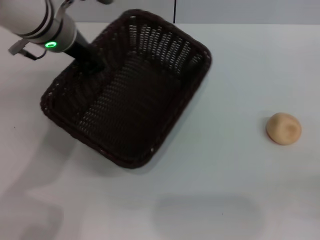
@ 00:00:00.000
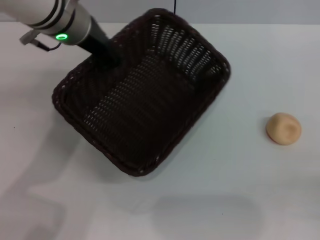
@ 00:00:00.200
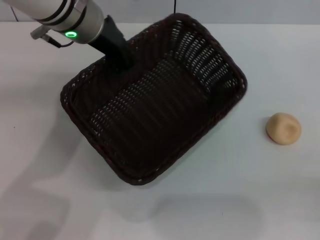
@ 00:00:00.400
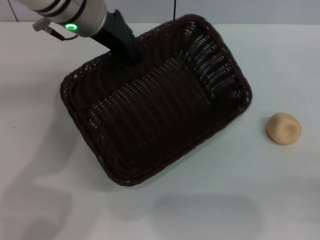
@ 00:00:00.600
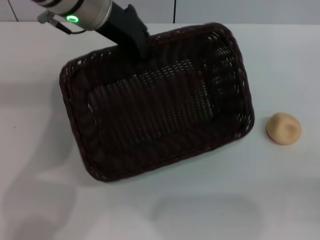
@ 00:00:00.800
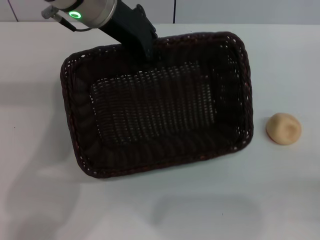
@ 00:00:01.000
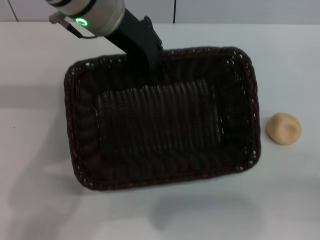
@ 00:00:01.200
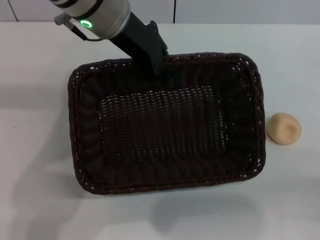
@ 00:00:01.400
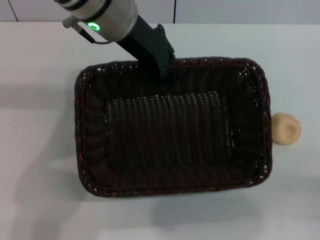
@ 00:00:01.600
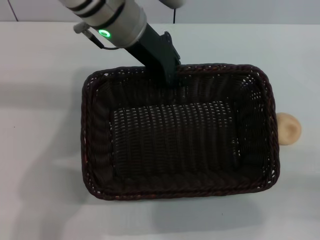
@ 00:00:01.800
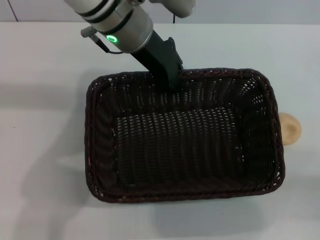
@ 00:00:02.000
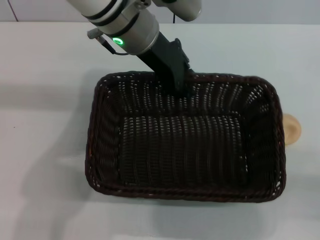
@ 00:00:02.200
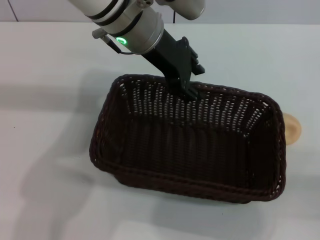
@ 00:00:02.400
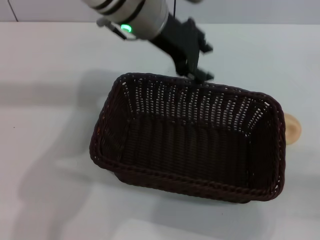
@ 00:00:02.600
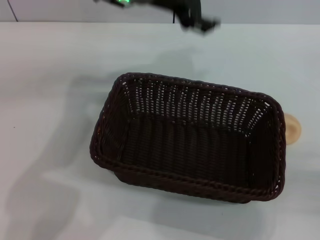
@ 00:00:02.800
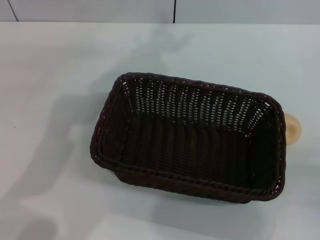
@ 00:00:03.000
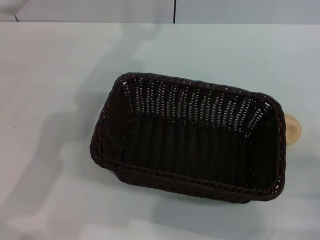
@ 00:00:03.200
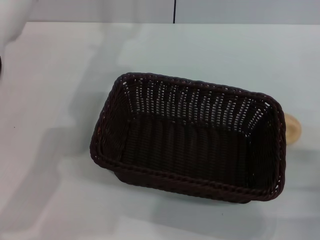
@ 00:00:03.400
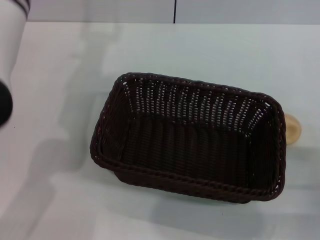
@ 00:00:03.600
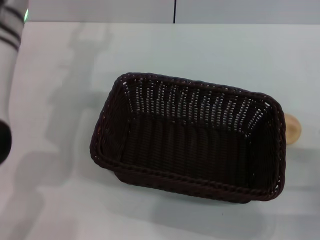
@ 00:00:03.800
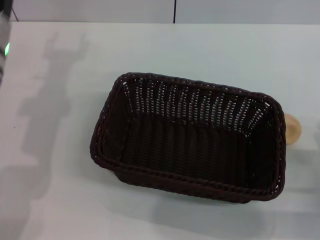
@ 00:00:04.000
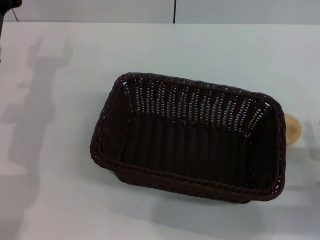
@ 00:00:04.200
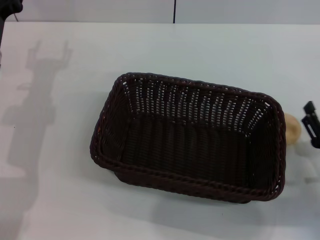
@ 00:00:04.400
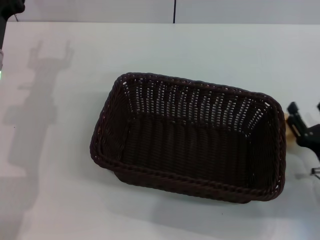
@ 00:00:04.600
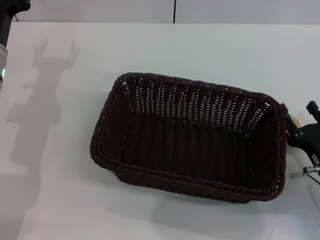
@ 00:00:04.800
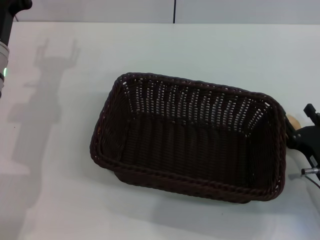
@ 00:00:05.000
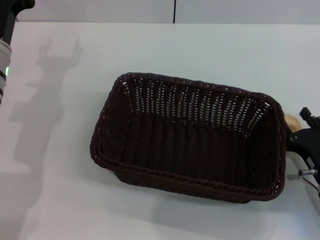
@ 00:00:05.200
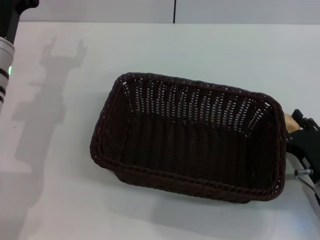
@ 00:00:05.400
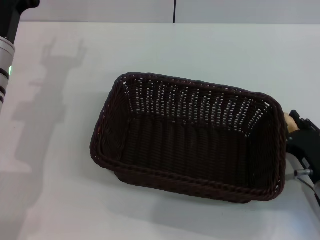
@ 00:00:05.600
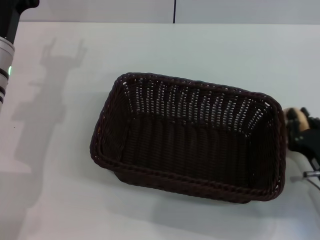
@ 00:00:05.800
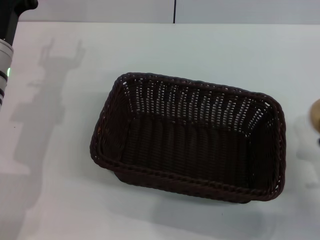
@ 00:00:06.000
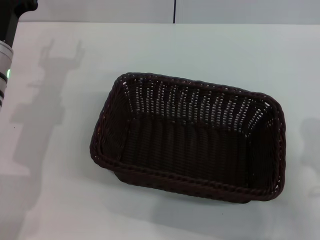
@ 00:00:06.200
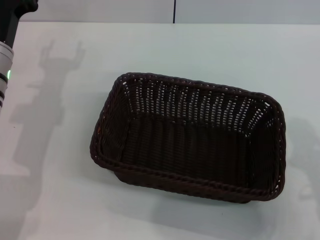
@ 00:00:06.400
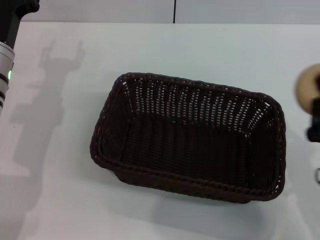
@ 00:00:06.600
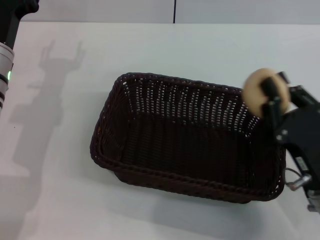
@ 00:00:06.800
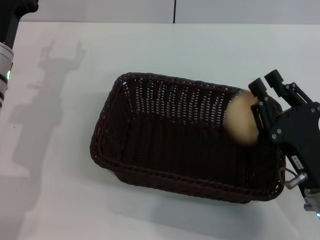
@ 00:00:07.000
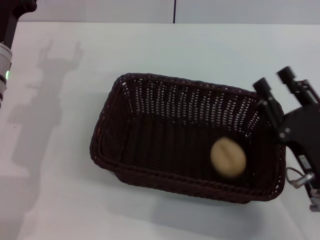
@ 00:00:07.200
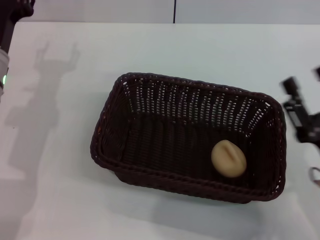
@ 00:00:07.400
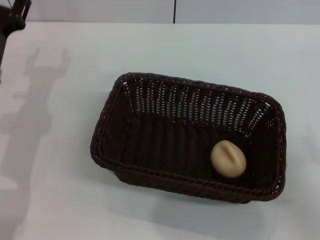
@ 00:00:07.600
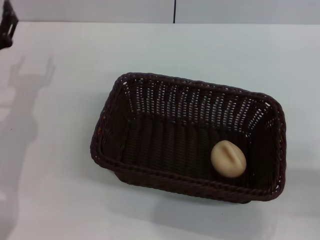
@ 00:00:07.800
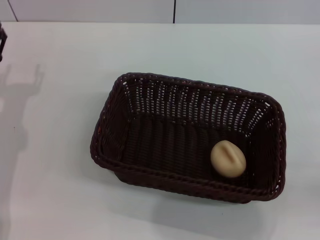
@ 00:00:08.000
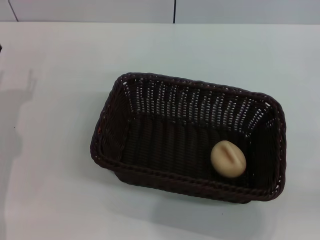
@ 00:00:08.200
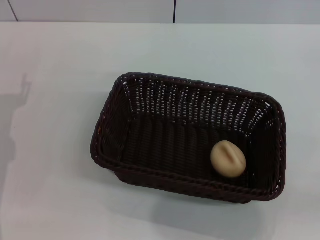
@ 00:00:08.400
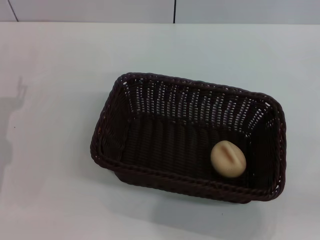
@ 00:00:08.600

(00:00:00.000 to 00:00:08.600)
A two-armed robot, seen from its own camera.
Step, 00:00:00.000 - 00:00:02.600: Move the basket to the center of view with the left gripper.
Step, 00:00:02.800 - 00:00:06.400: Pick up the egg yolk pastry with the right gripper.
Step, 00:00:06.600 - 00:00:07.200: Place the egg yolk pastry into the basket with the right gripper.
00:00:00.000 - 00:00:01.400: The left gripper is displaced to the right by approximately 5 cm.
00:00:01.400 - 00:00:02.800: The left gripper opens.
00:00:02.800 - 00:00:04.400: The right gripper heads forward and to the left, covering roughly 10 cm. The left gripper travels to the left, downward and backward by roughly 25 cm.
00:00:04.400 - 00:00:05.800: The right gripper closes.
00:00:05.800 - 00:00:07.200: The right gripper shifts about 5 cm upward.
00:00:07.200 - 00:00:08.600: The right gripper goes roughly 20 cm to the right and backward, and opens; the left gripper goes roughly 10 cm backward, downward and to the left.

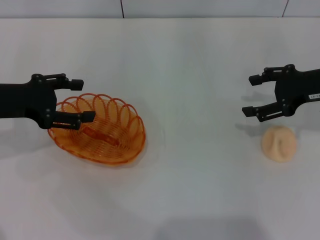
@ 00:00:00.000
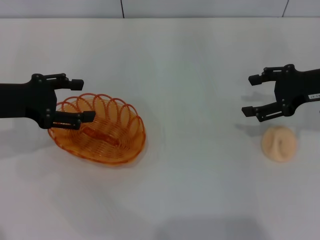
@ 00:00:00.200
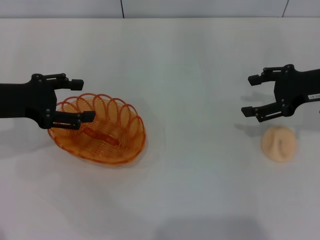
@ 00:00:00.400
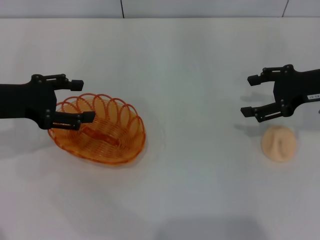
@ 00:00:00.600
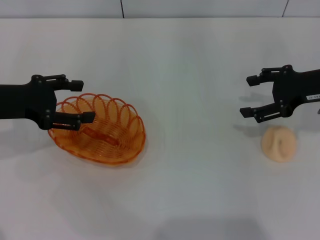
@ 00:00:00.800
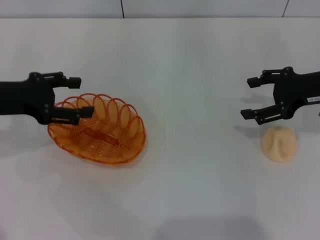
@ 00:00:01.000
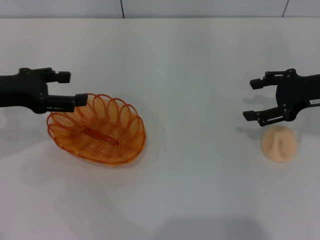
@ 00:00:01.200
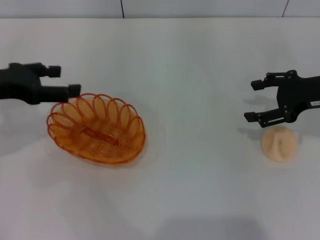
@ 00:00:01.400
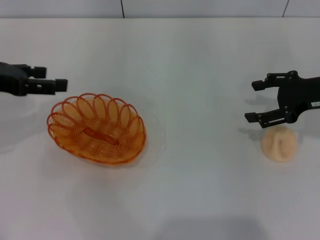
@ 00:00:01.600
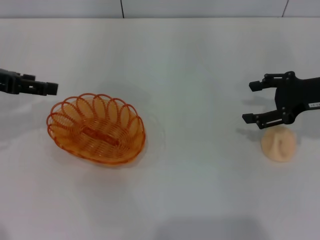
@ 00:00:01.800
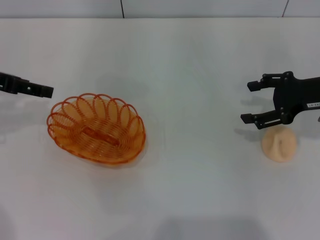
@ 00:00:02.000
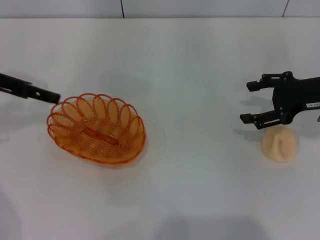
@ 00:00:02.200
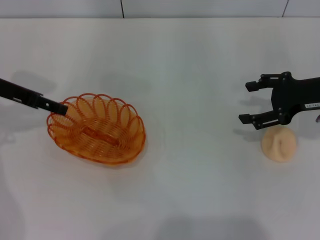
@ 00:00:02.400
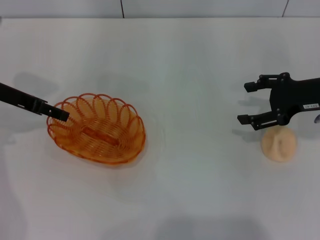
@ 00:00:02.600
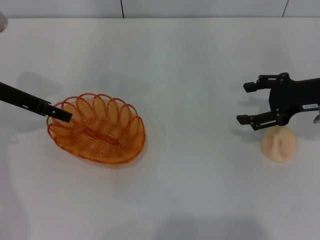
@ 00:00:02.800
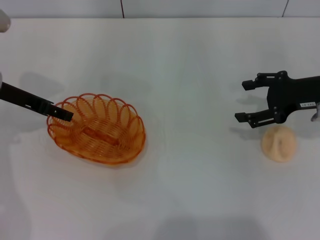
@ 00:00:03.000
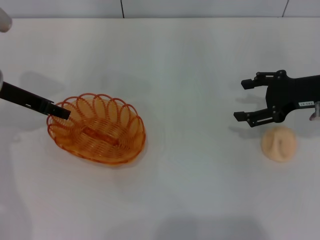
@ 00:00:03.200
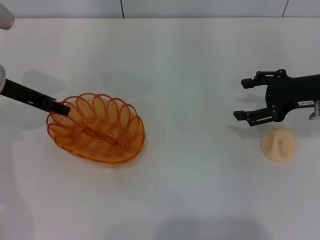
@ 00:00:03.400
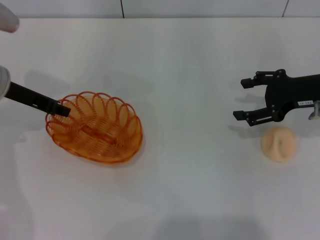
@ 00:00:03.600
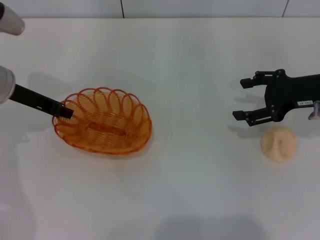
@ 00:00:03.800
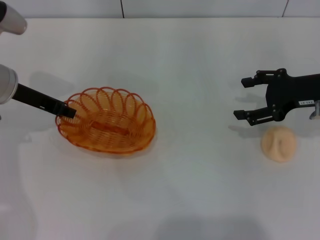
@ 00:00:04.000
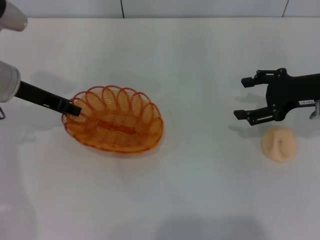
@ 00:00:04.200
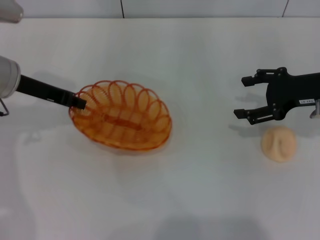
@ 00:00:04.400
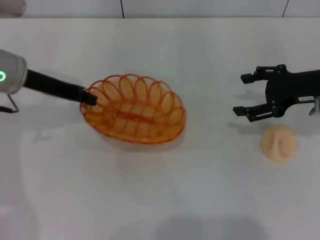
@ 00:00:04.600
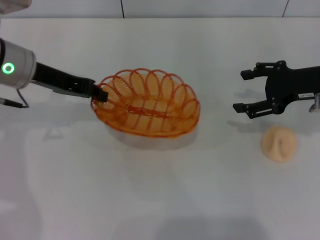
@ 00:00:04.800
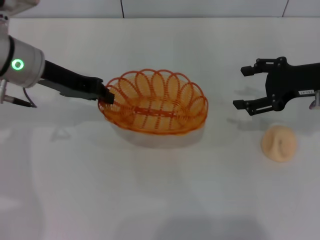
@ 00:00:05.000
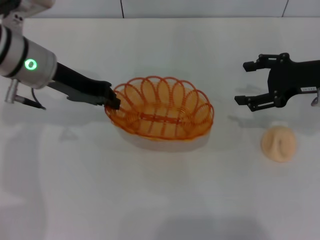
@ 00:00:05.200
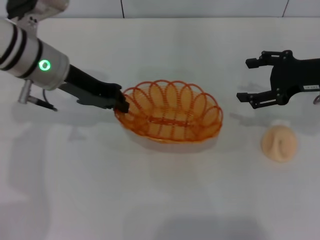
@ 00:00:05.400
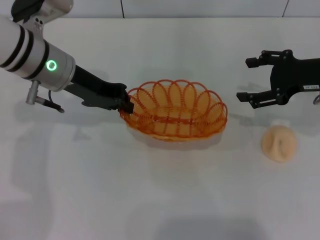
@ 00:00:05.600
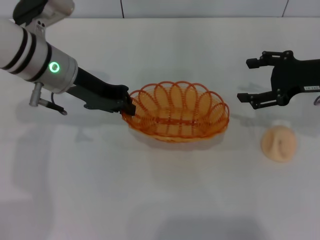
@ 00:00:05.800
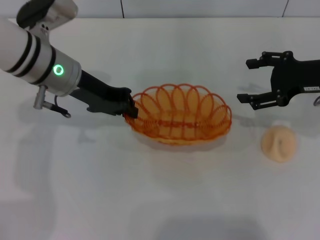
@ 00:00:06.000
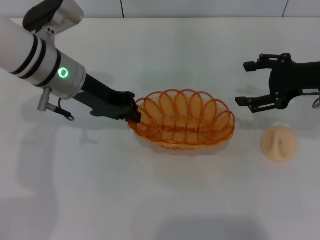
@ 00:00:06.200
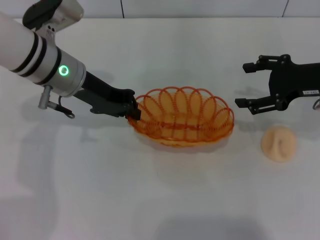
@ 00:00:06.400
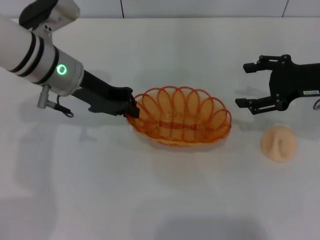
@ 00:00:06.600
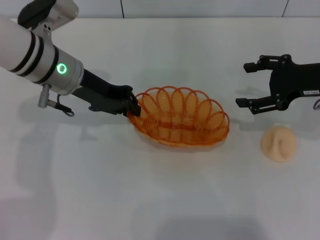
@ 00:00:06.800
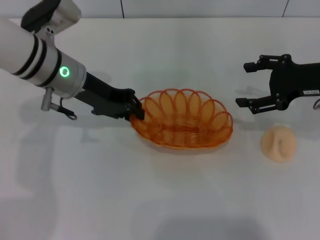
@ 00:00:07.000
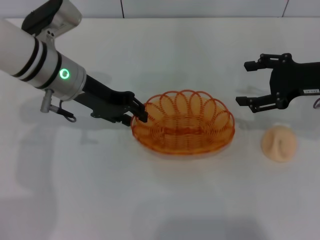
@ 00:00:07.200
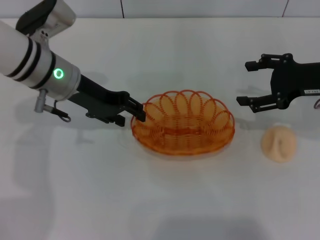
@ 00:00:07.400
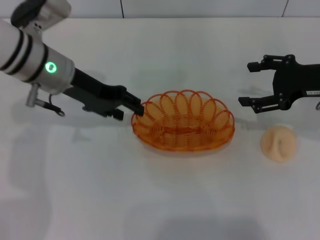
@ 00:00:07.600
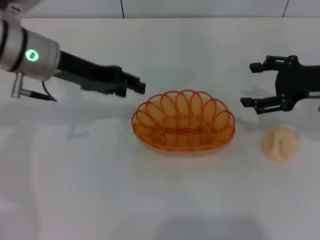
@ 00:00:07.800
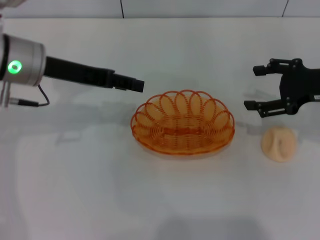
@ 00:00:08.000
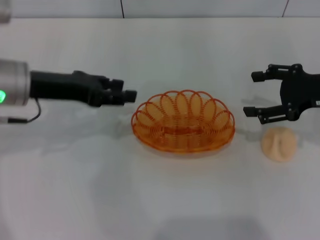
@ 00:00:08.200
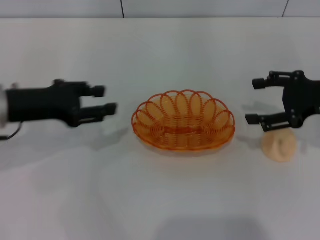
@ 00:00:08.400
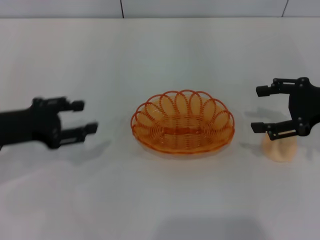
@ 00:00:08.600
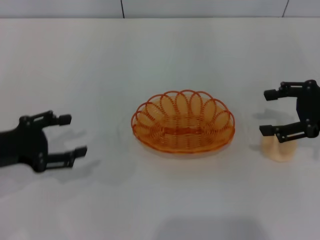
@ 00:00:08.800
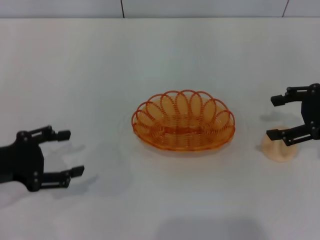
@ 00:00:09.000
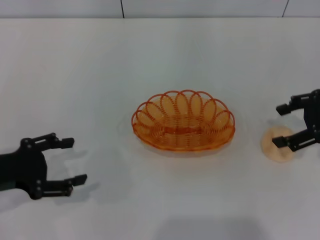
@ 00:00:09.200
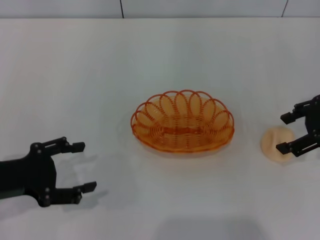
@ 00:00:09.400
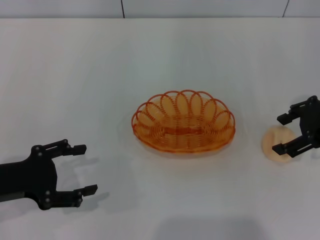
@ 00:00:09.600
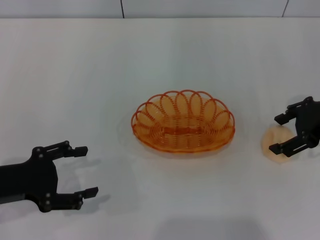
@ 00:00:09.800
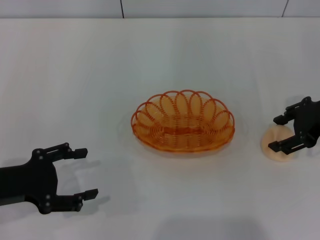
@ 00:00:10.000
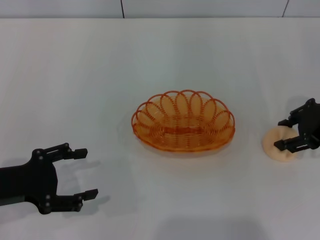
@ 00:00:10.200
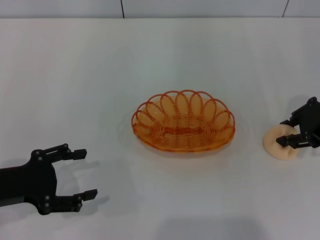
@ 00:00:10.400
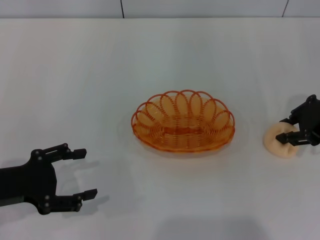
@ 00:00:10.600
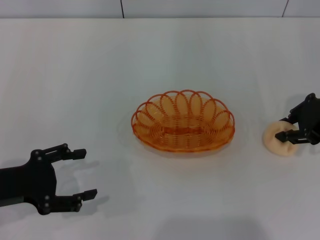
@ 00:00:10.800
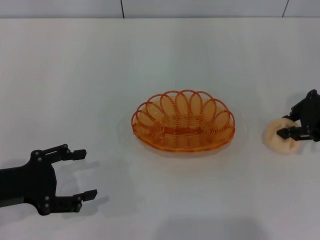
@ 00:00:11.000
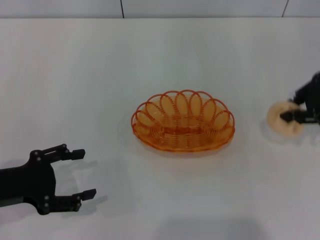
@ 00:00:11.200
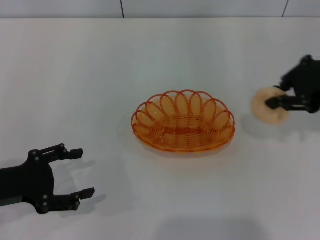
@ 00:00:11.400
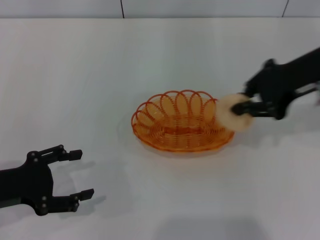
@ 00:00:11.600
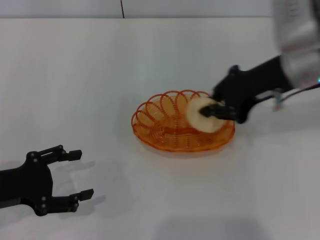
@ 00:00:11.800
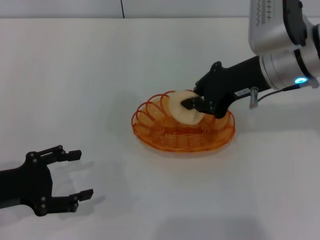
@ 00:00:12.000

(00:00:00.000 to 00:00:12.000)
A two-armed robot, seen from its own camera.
Step, 00:00:00.000 - 00:00:04.800: Pick up the basket with the left gripper.
Step, 00:00:05.000 - 00:00:07.600: Place the basket in the center of view with the left gripper.
Step, 00:00:07.800 - 00:00:11.400: Pick up the egg yolk pastry with the right gripper.
00:00:01.600 - 00:00:03.000: The left gripper goes roughly 5 cm forward.
00:00:03.000 - 00:00:04.400: The left gripper closes.
00:00:04.400 - 00:00:06.000: The left gripper is displaced to the right by roughly 10 cm.
00:00:06.000 - 00:00:07.600: The left gripper opens.
00:00:07.600 - 00:00:09.000: The left gripper goes about 20 cm backward and to the left.
00:00:09.000 - 00:00:10.400: The right gripper closes.
00:00:10.400 - 00:00:12.000: The right gripper travels to the left by about 10 cm, and closes.

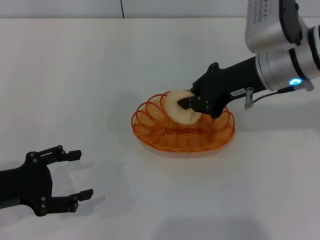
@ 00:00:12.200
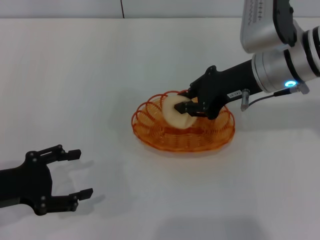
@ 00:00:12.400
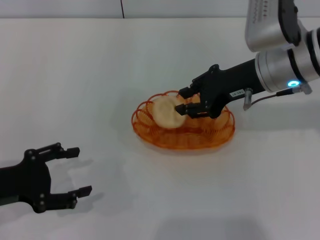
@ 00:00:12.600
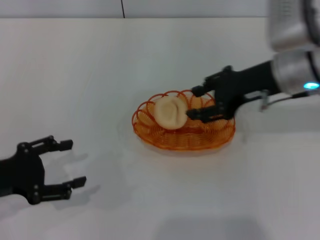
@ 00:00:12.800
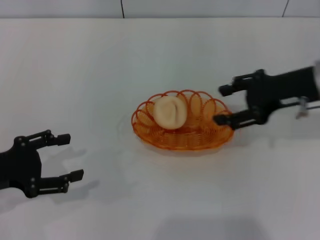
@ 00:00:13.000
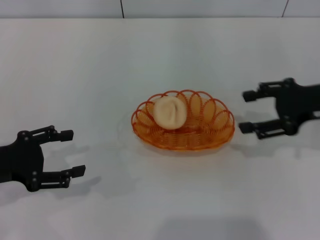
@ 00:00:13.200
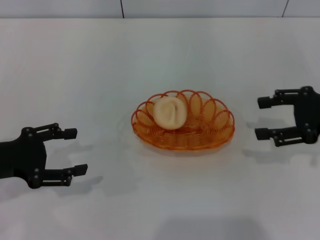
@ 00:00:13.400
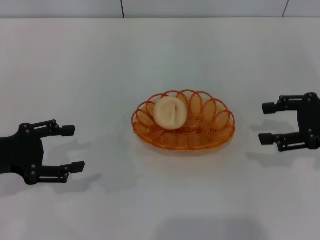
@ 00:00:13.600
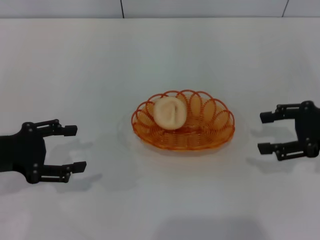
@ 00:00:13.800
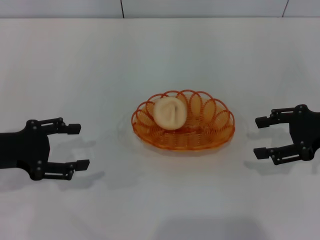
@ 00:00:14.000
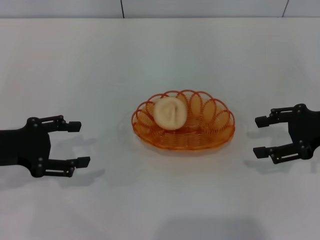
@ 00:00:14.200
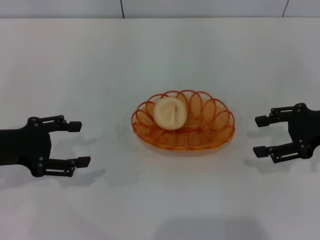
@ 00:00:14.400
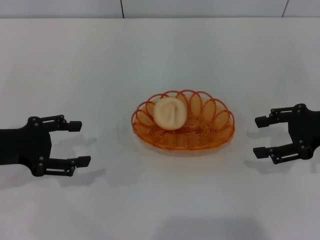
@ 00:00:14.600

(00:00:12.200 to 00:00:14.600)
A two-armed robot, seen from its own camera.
00:00:12.200 - 00:00:13.400: The right gripper goes some 15 cm to the right, and opens.
00:00:13.400 - 00:00:14.600: The grippers stay close to where they were, moving slightly.
